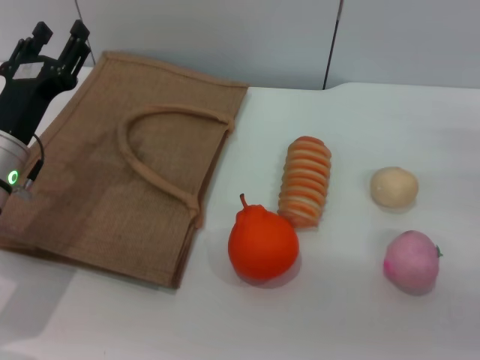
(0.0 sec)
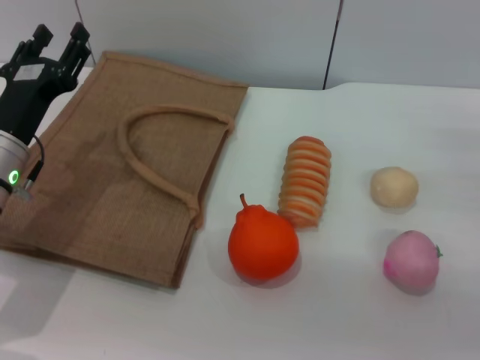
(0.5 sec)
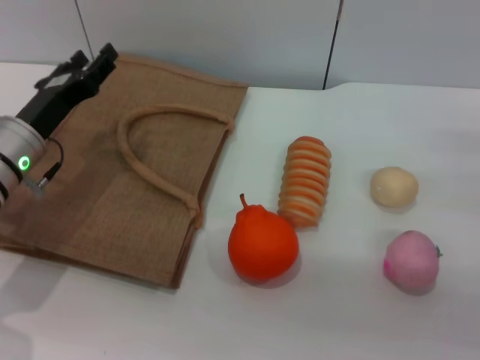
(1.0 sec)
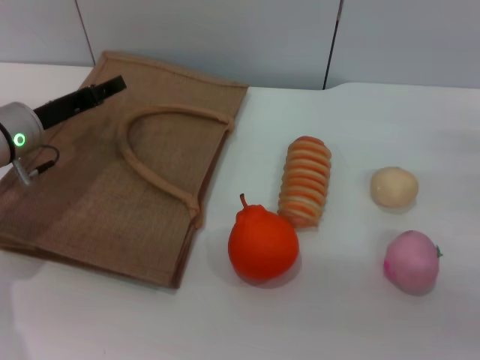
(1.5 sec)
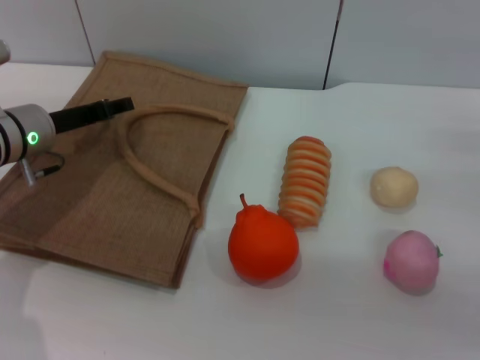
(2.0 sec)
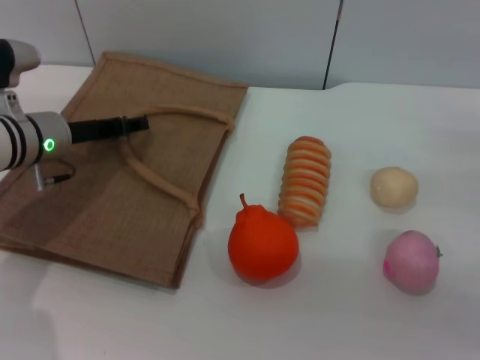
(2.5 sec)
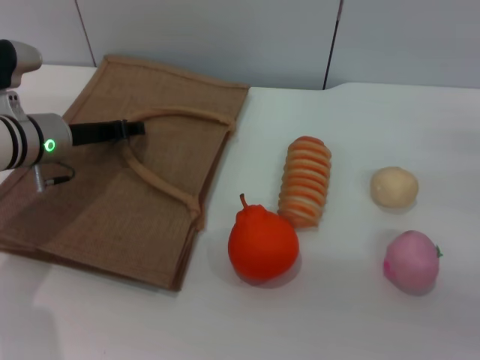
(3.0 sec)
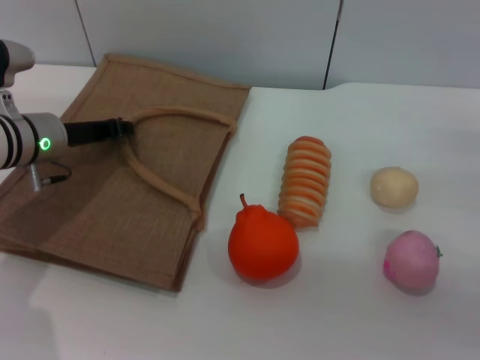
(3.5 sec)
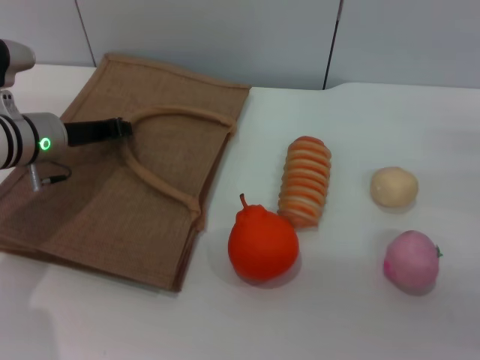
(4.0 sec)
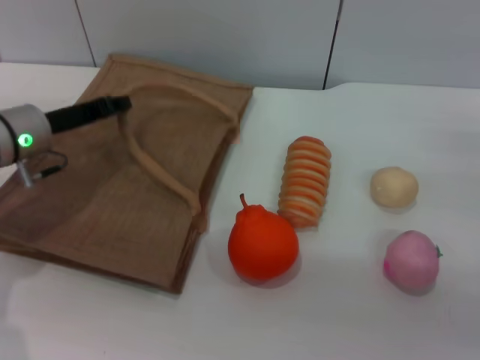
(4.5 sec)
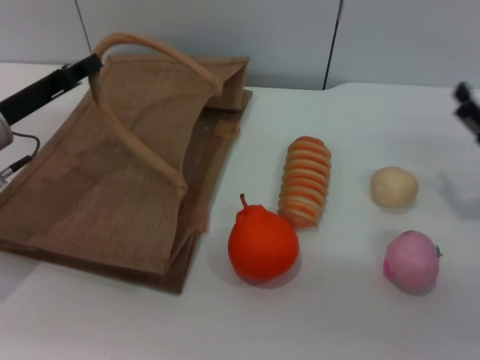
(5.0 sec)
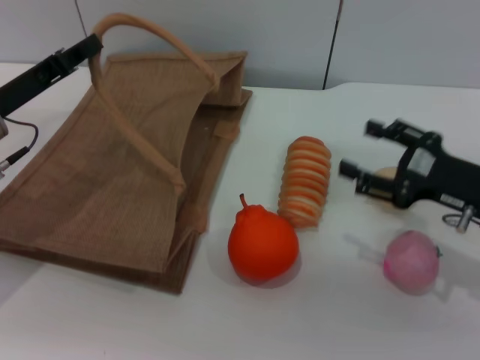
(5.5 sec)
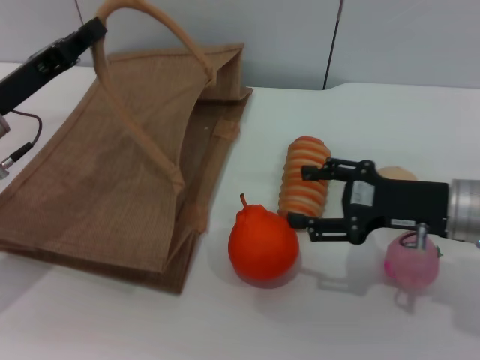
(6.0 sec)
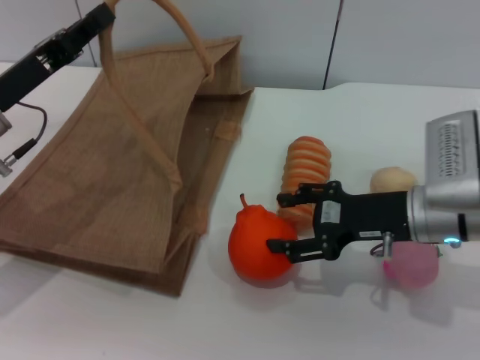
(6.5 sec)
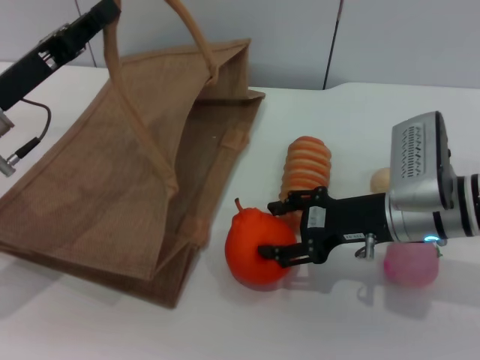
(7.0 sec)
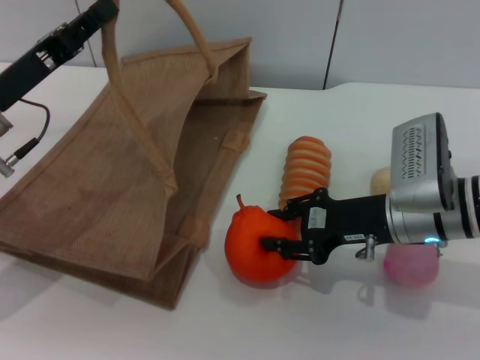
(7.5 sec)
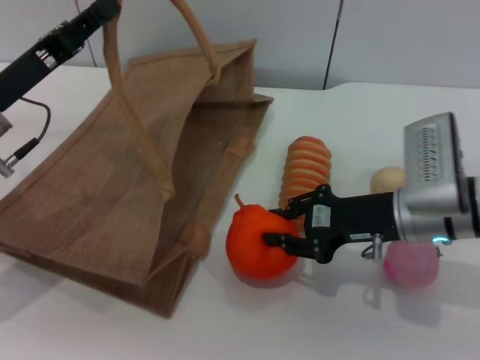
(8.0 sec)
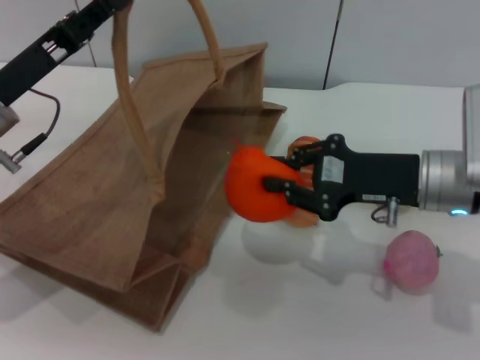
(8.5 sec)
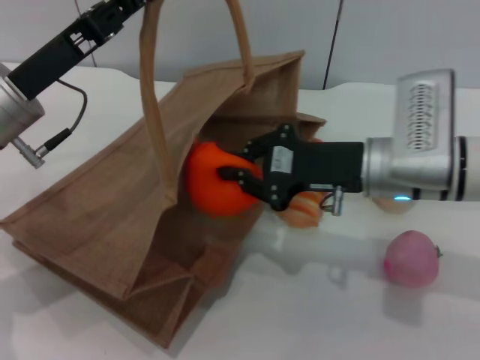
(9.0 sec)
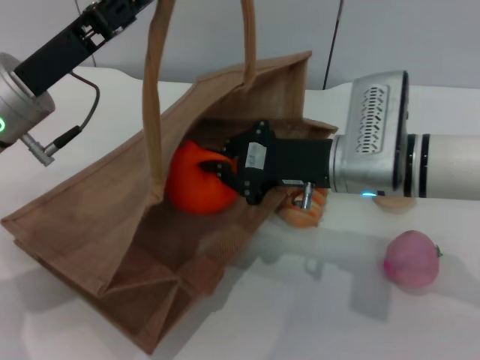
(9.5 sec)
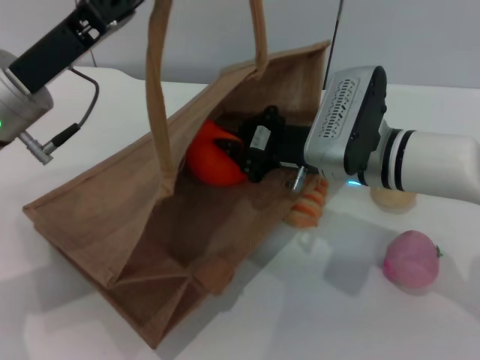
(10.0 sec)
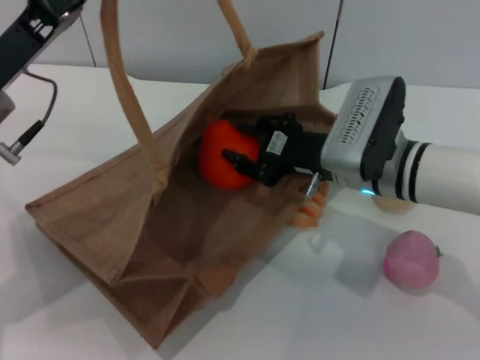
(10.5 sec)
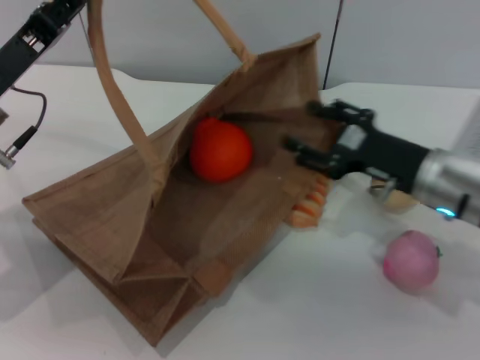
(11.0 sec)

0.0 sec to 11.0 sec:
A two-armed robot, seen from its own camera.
Task of the whole recording: pick up the orange from the table and place it in the brown handbag.
Step, 0.0 sec to 4.5 sec: Lift the woven bag with the left gripper to open it.
Step, 5.0 sec to 8.0 sec: Pick up the orange with the right gripper.
Step, 8.5 sec to 11.0 sec: Place the peach into the woven bag with the right gripper.
0.0 sec to 2.0 sec: The left gripper moves forward, roughly 10 cm.
2.0 sec to 3.5 sec: The left gripper closes.
3.5 sec to 5.5 sec: The left gripper heads backward, covering approximately 5 cm, while the right gripper is displaced to the left by some 5 cm.
5.5 sec to 7.5 sec: The right gripper heads to the left, covering about 10 cm.
7.5 sec to 9.0 sec: The right gripper ends up approximately 5 cm from where it was, and closes.
9.0 sec to 11.0 sec: The right gripper shifts some 5 cm to the right, and opens its fingers.

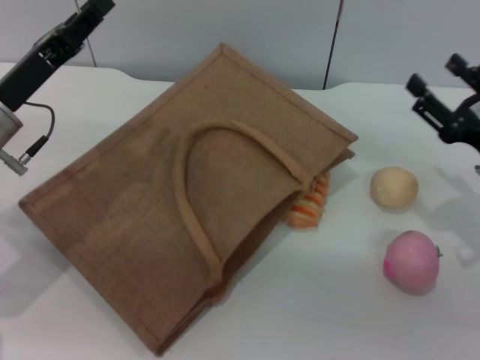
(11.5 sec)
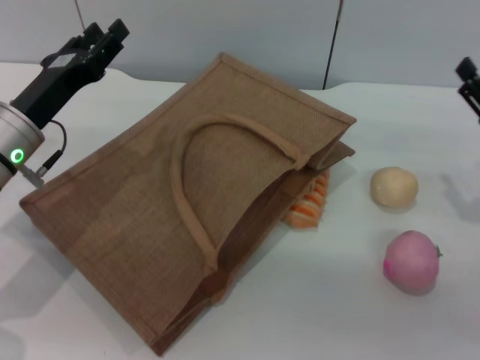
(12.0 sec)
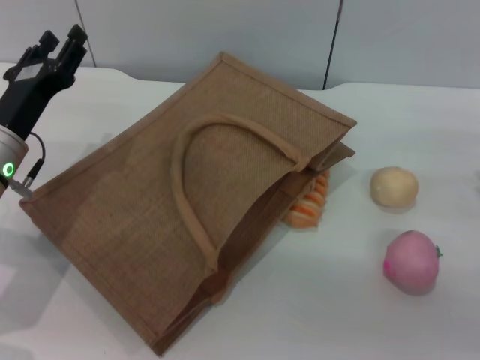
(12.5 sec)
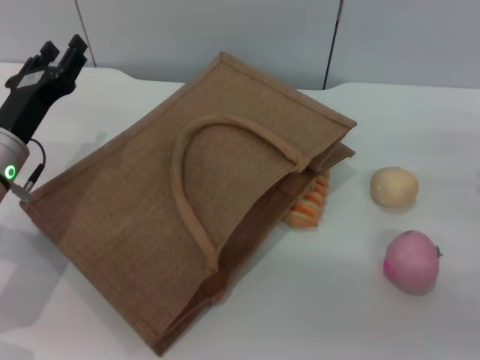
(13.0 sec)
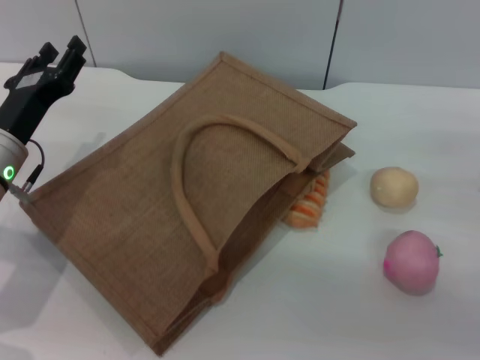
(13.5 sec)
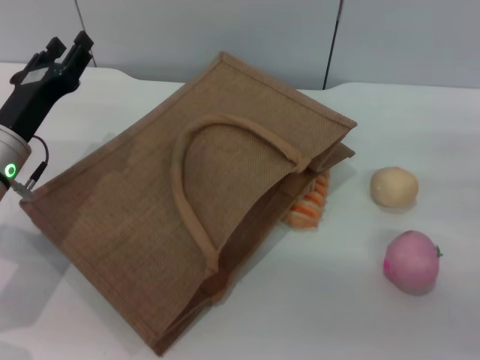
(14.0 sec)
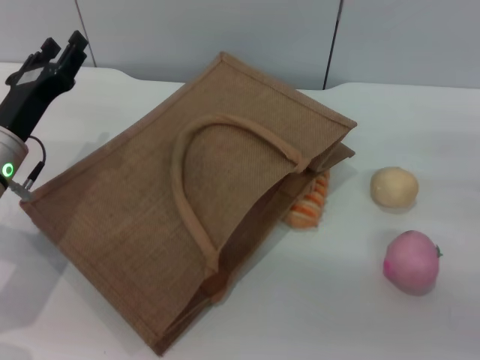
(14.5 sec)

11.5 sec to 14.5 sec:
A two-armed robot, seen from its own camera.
Task of the whole recording: pick up the orange from the table and place it in the brown handbag.
Step, 11.5 sec to 13.0 sec: Lower the woven bag with the left gripper to close it.
11.5 sec to 13.0 sec: The left gripper opens up.
13.0 sec to 14.5 sec: Neither gripper changes place.
